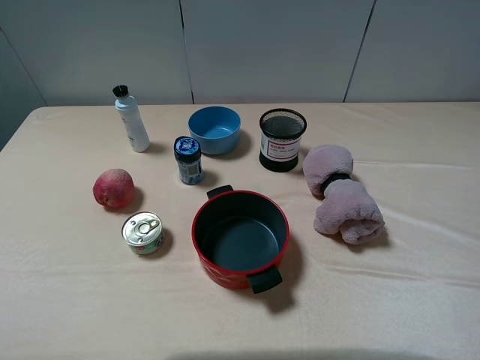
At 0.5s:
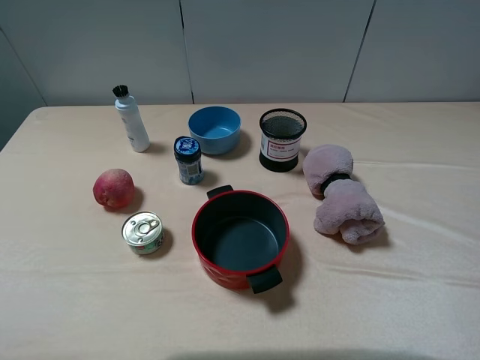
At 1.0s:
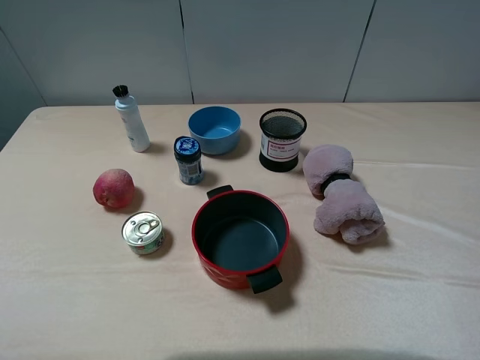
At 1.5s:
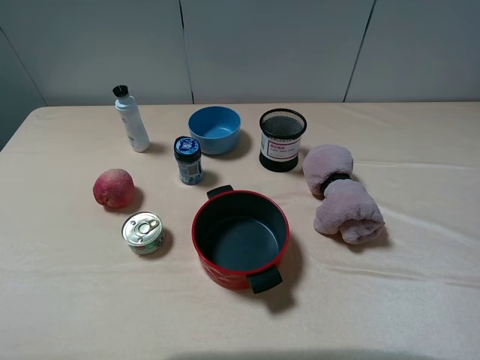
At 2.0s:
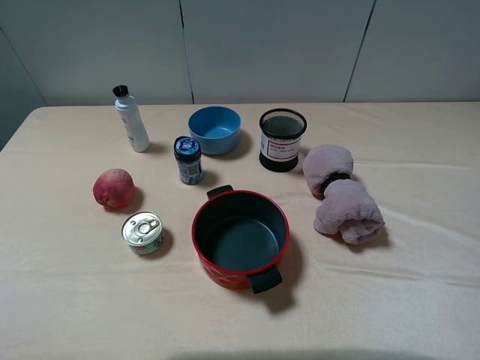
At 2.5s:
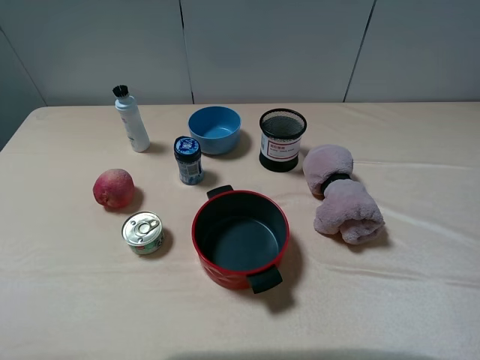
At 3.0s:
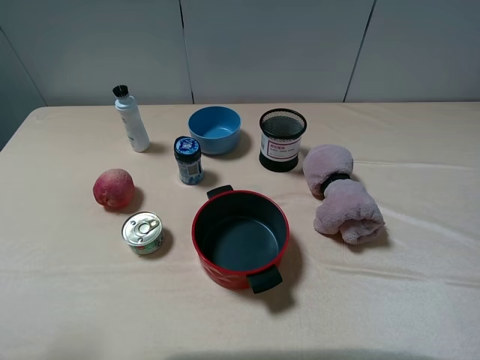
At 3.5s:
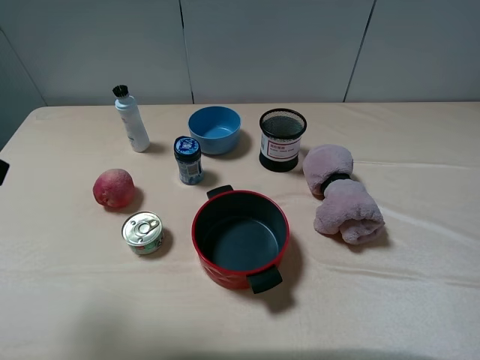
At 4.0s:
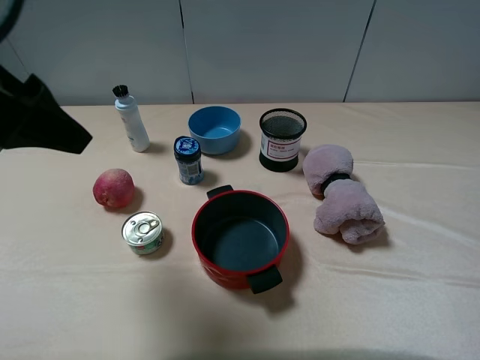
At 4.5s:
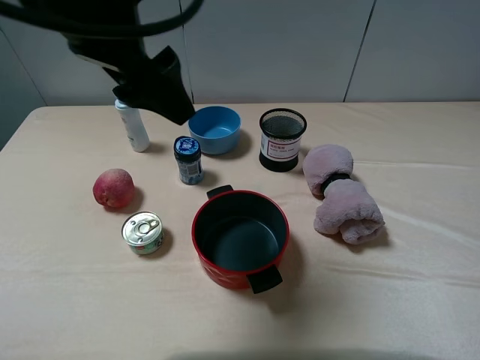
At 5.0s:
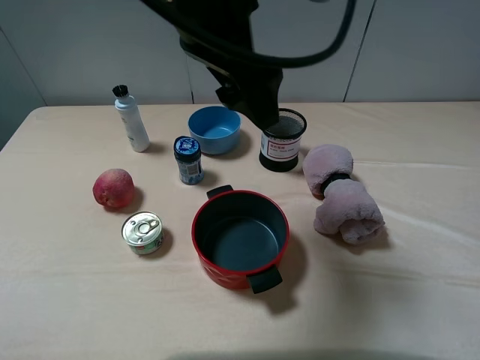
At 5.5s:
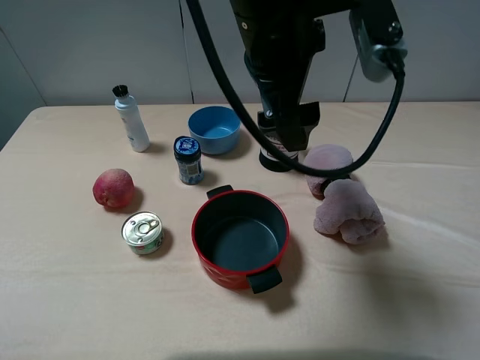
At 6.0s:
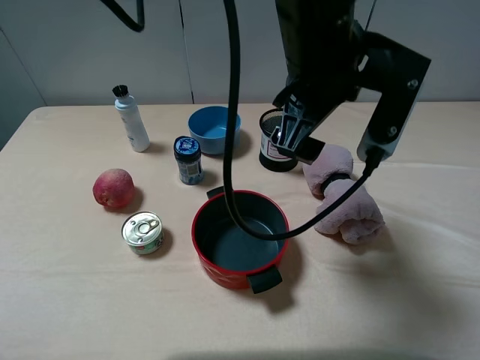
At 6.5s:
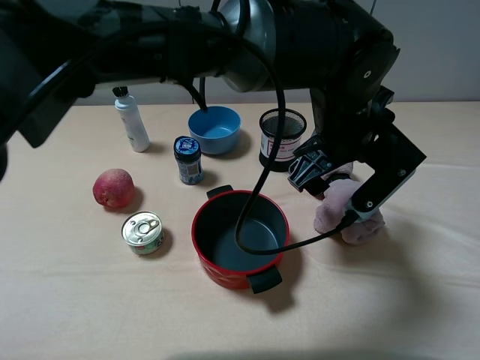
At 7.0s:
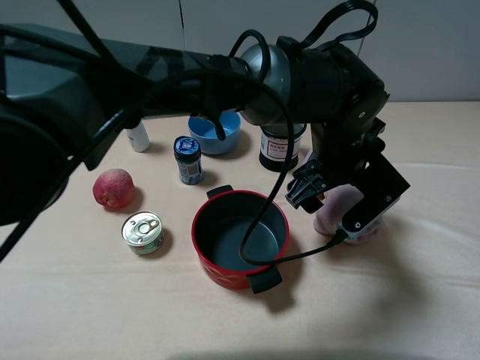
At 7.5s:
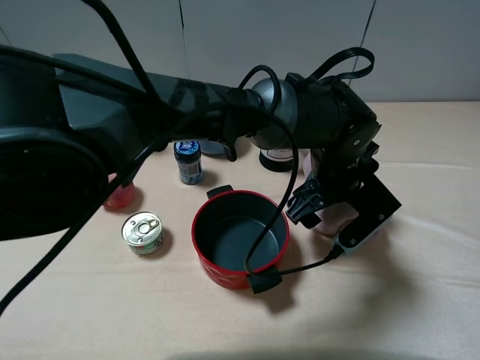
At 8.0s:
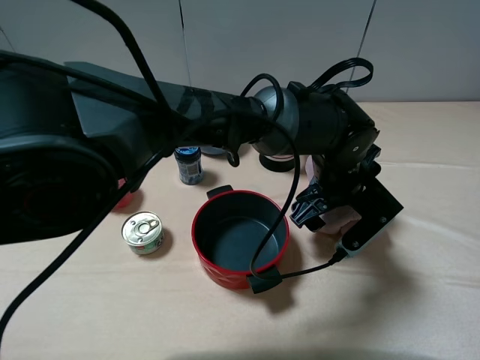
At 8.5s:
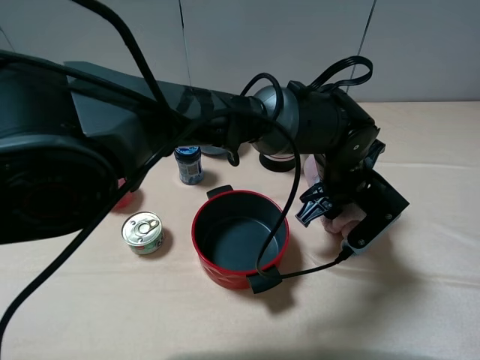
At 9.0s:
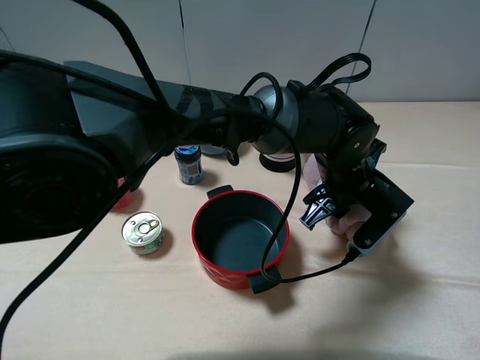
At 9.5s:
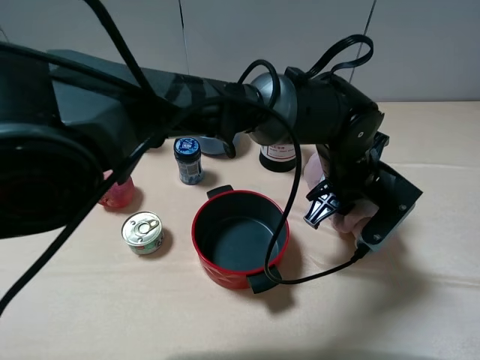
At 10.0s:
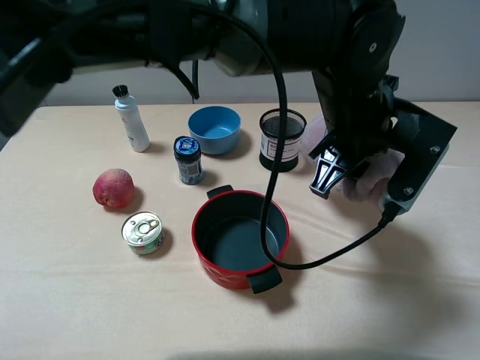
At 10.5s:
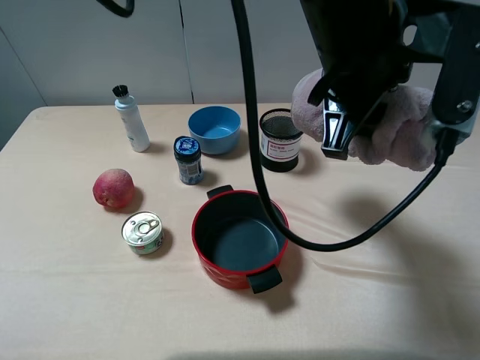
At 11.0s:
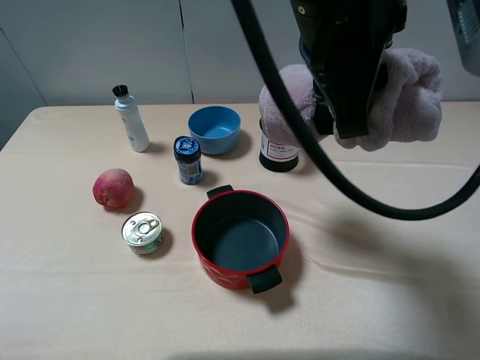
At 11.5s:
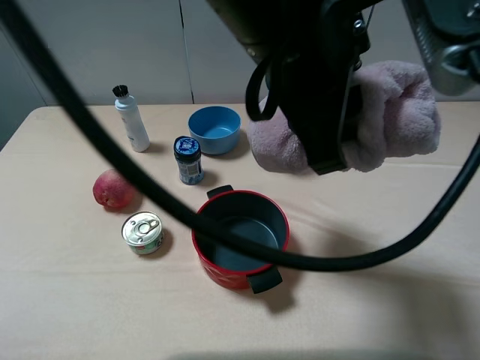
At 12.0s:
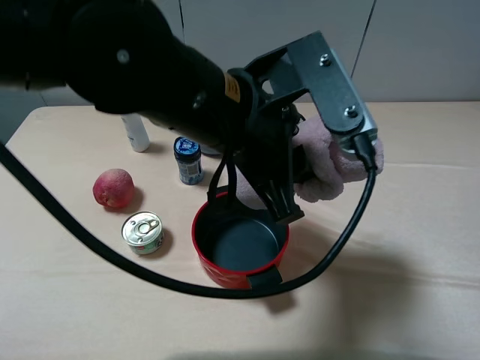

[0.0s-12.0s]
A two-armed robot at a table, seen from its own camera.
Task of the whole recording: pick up an item with a gripper and place it in a random container on the table.
Step, 0.0s to 8.5s: Grasp the pink towel with the left gripper.
0.0s to 2.0s: Both grippers stay about where they are.
2.0s to 4.0s: The left gripper shifts roughly 20 cm forward and to the right.
4.0s to 6.0s: The left gripper is displaced to the right by approximately 30 cm.
6.0s to 8.0s: The left gripper shifts roughly 15 cm downward.
8.0s to 10.0s: The left gripper travels upward by about 10 cm, and closes.
10.0s to 12.0s: The left gripper moves to the left and backward, about 15 cm.

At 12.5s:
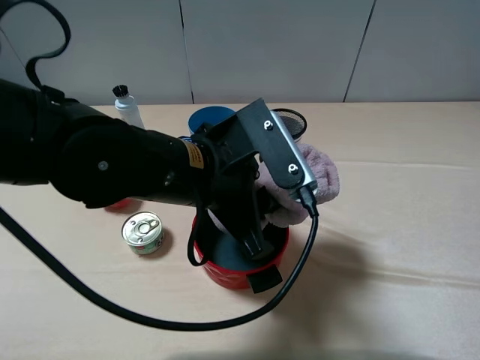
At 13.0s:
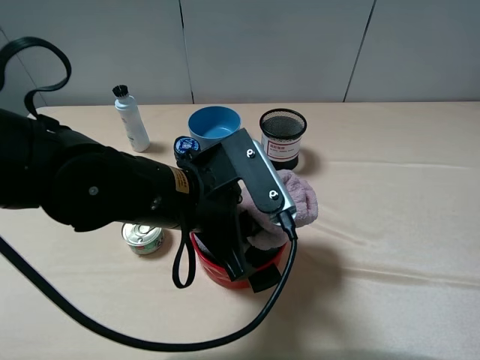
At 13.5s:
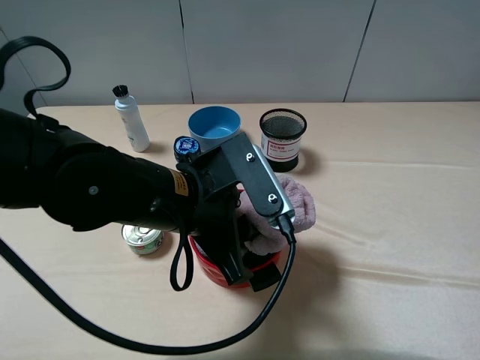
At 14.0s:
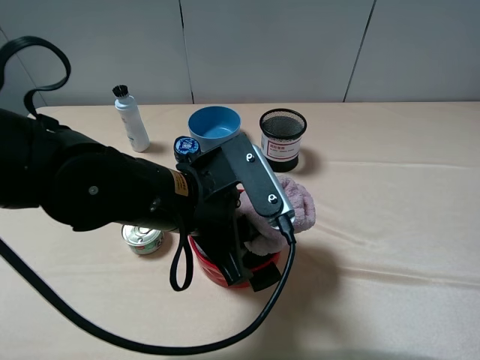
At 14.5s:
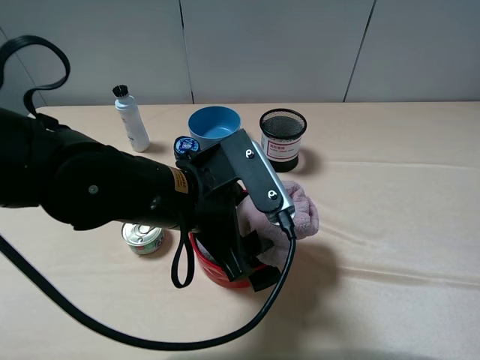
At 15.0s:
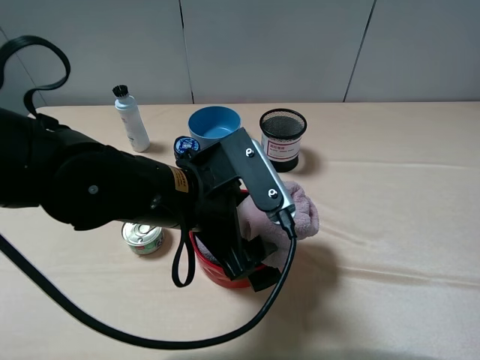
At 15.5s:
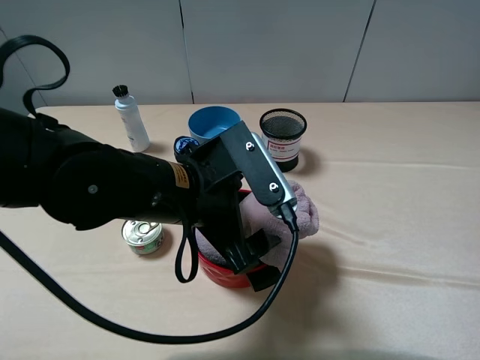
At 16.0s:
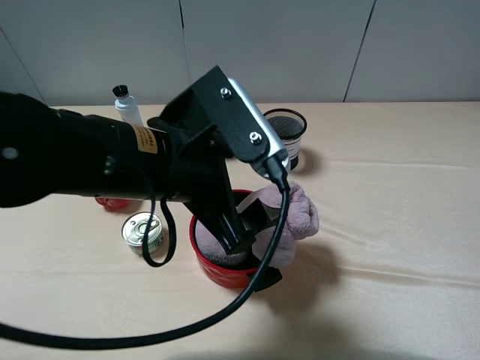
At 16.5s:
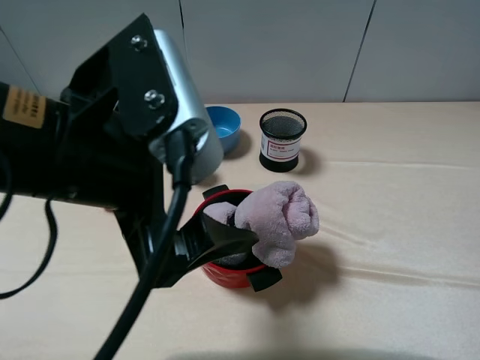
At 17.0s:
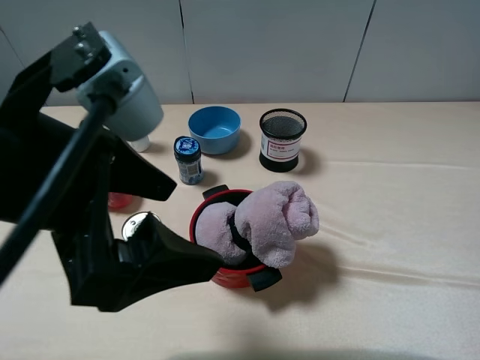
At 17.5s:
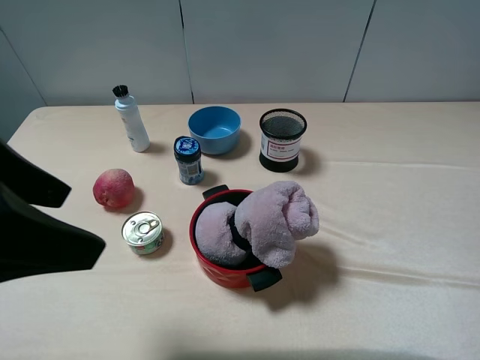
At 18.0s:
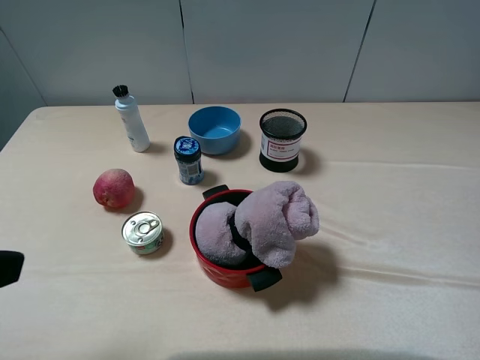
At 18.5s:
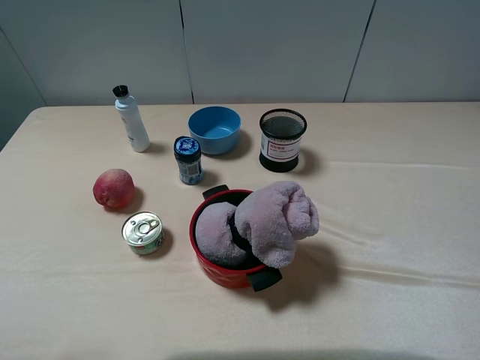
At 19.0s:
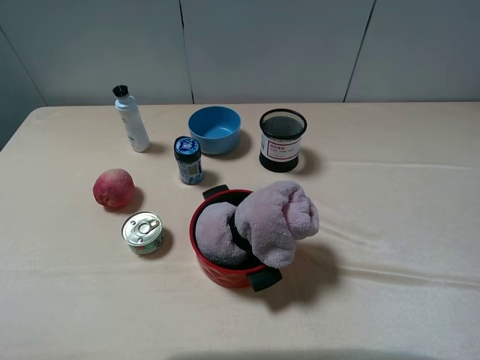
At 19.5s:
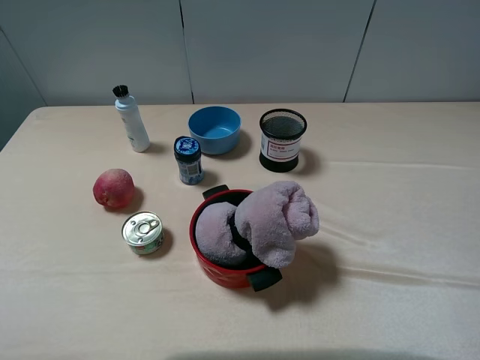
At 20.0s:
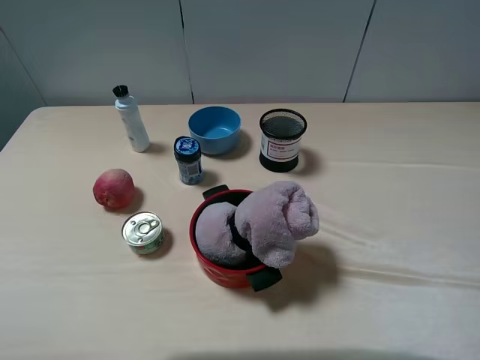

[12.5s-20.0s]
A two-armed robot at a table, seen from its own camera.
Task of the whole recording: pick up an item with a gripper and place it in a random container on the table.
Step, 12.5s to 15.5s: Place the pink towel into the red pot with the left gripper.
12.5s to 14.5s: The left gripper opens up.
14.5s to 16.5s: The left gripper goes some 10 cm upward and to the left.
16.5s to 18.0s: The left gripper goes roughly 20 cm to the left and backward.

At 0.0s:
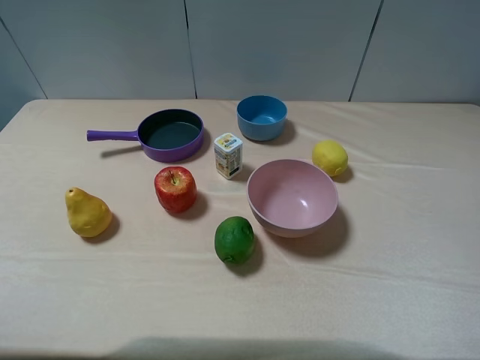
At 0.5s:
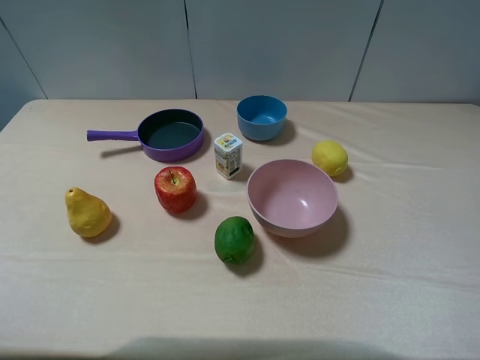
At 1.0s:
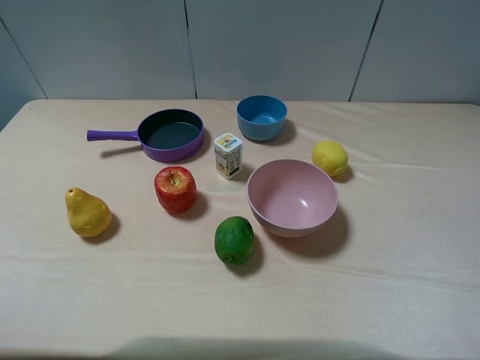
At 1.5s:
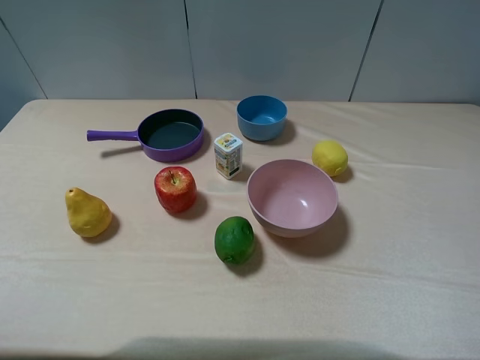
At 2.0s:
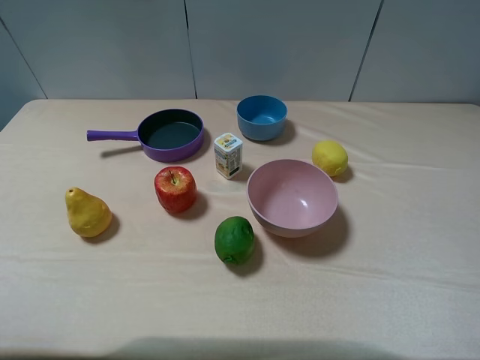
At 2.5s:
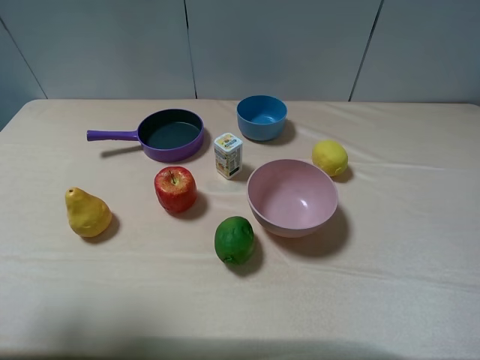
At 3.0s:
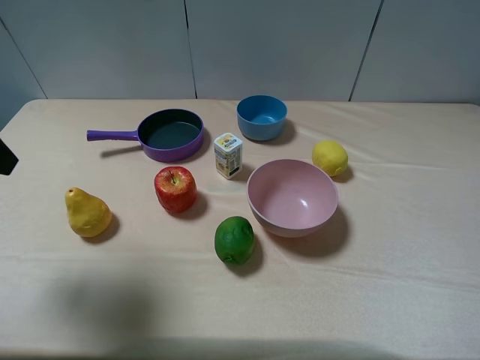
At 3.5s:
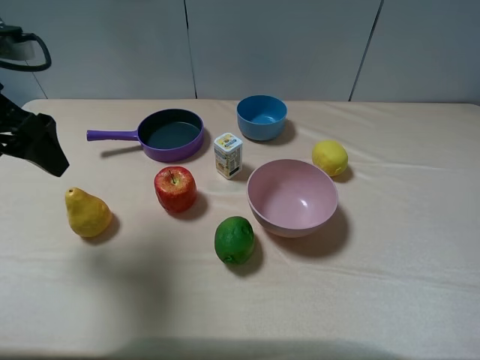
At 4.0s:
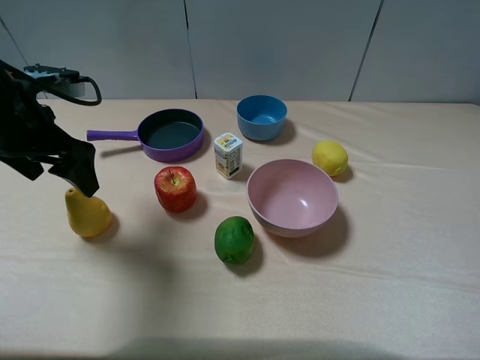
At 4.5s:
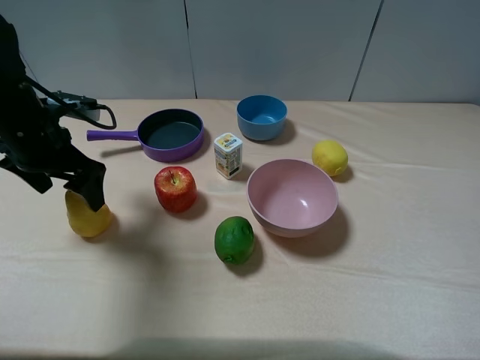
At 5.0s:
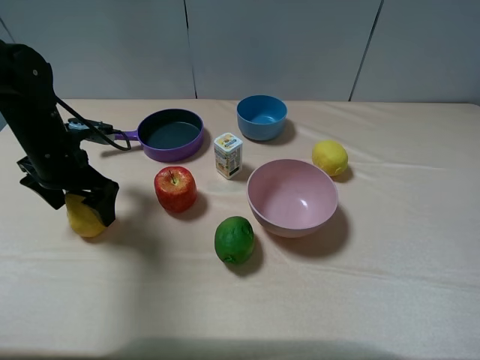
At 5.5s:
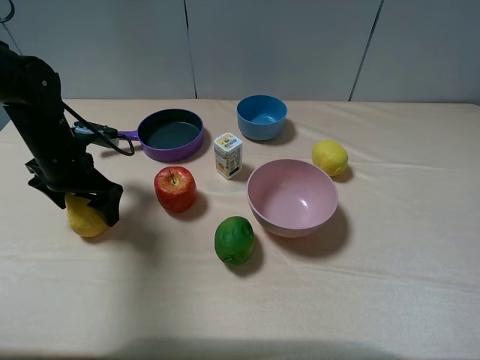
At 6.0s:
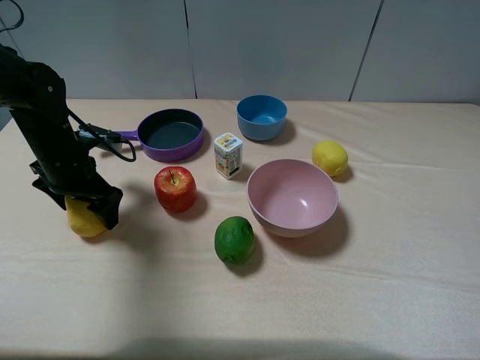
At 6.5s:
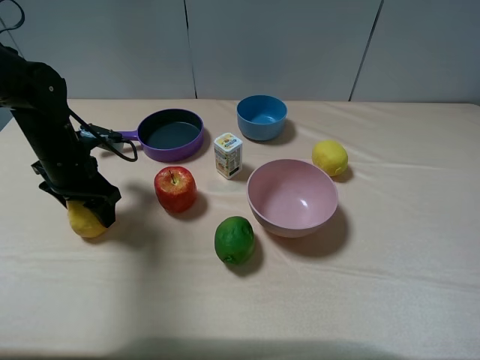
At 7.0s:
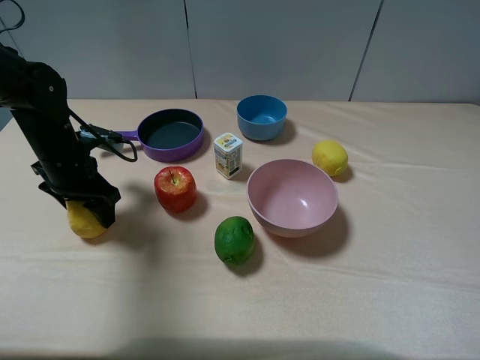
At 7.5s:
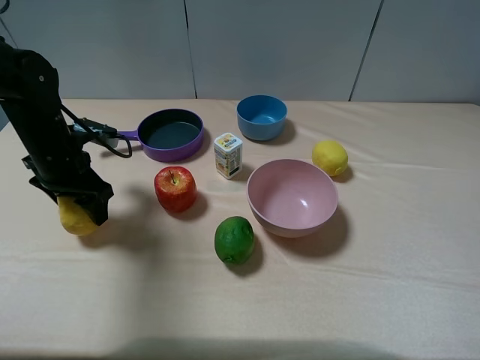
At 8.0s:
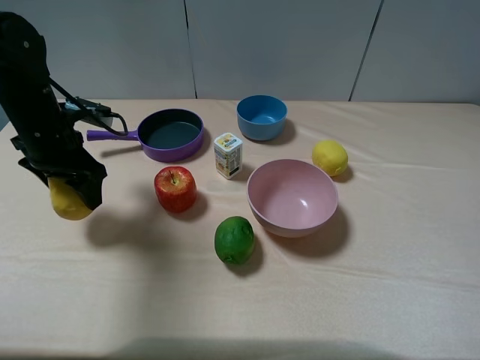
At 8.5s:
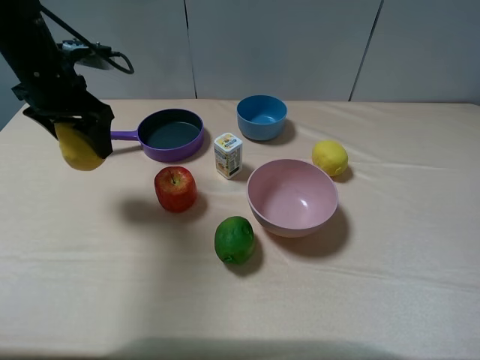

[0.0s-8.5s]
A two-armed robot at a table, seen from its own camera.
Task of the whole recording: pick up an item with a gripper and place it in a random container on the table.
Step, 0.0s to 6.5s: Grasp the pear with the left gripper.
2.0s to 4.0s: The left gripper travels forward by some 20 cm.
4.0s to 6.5s: The left gripper heads downward, covering some 10 cm, and closes its fingers.
6.5s to 8.5s: The left gripper moves upward, roughly 10 cm.
